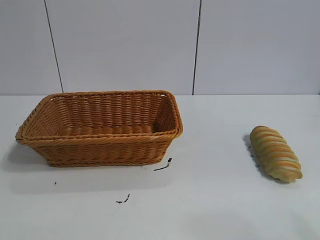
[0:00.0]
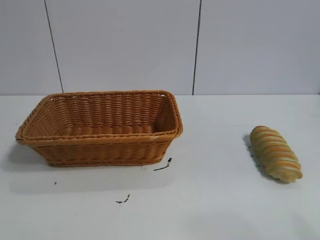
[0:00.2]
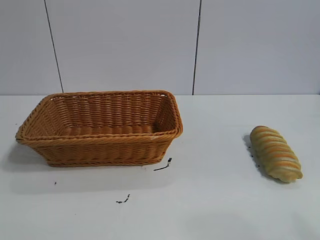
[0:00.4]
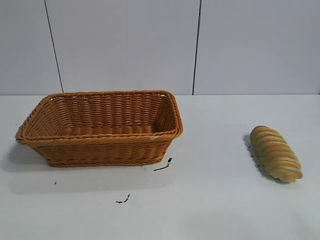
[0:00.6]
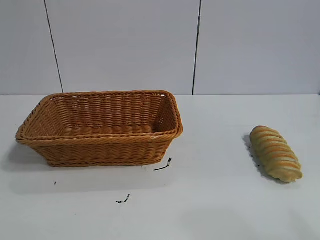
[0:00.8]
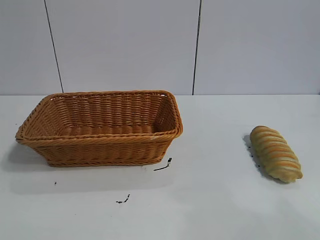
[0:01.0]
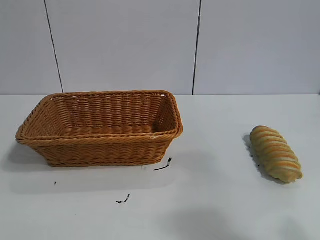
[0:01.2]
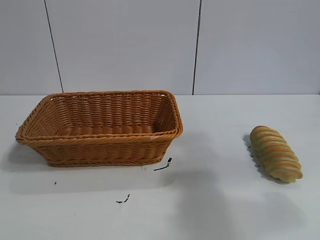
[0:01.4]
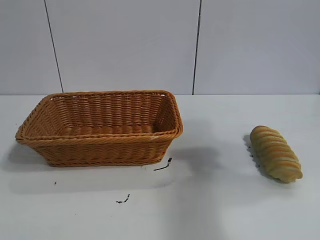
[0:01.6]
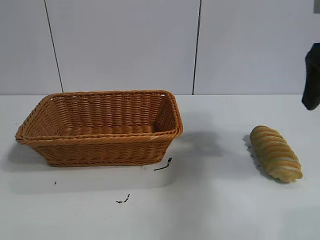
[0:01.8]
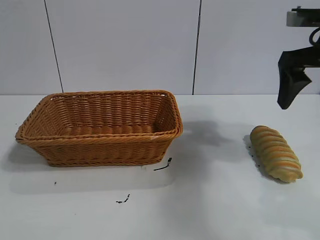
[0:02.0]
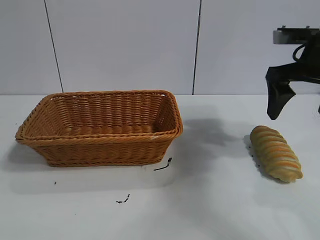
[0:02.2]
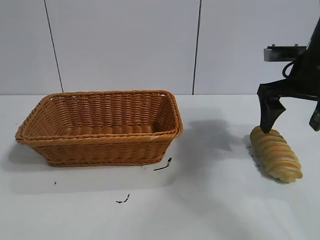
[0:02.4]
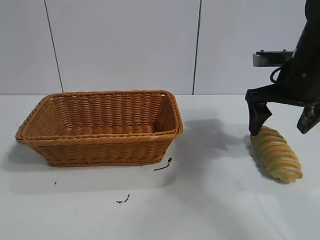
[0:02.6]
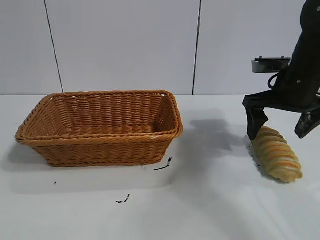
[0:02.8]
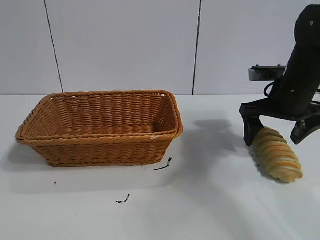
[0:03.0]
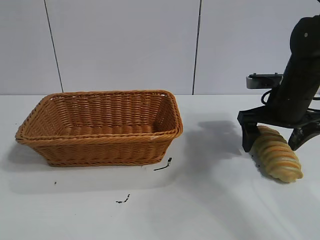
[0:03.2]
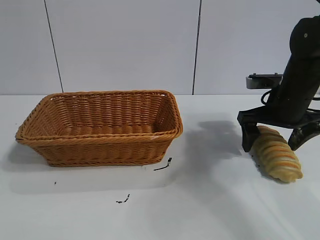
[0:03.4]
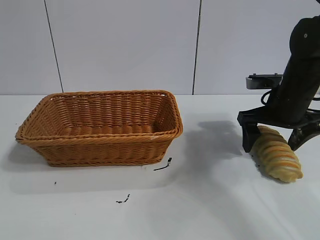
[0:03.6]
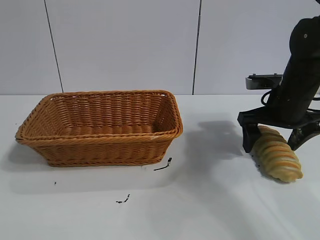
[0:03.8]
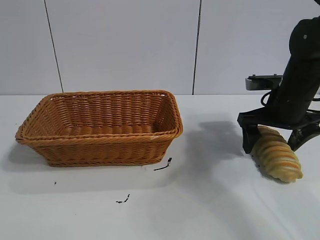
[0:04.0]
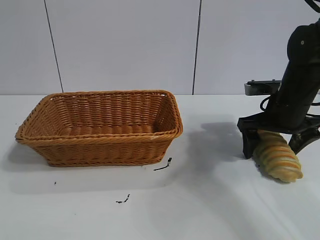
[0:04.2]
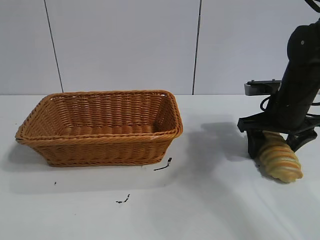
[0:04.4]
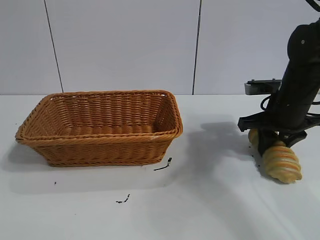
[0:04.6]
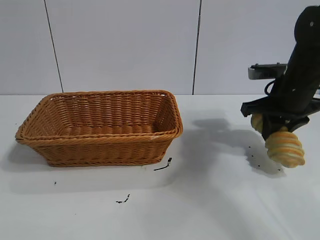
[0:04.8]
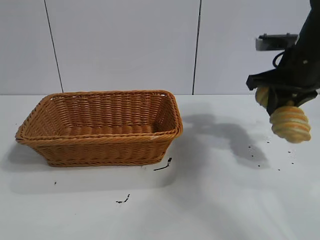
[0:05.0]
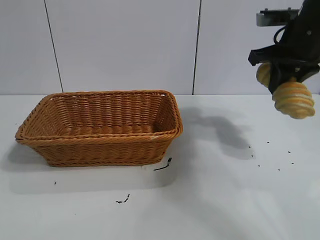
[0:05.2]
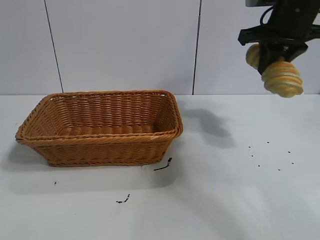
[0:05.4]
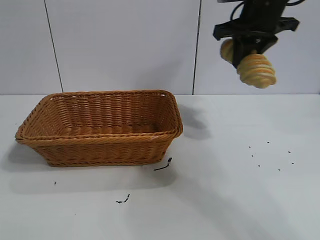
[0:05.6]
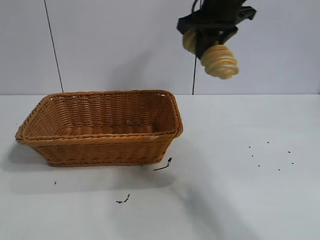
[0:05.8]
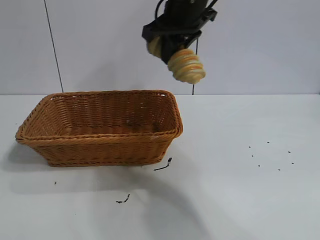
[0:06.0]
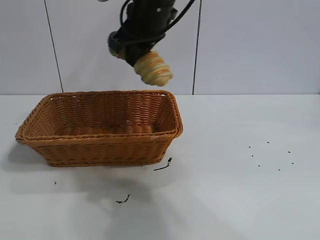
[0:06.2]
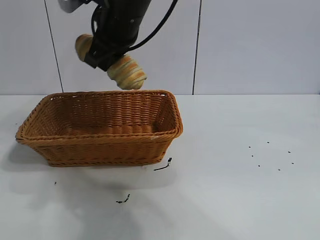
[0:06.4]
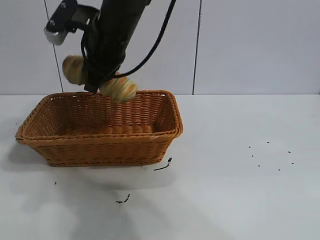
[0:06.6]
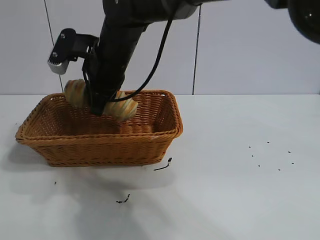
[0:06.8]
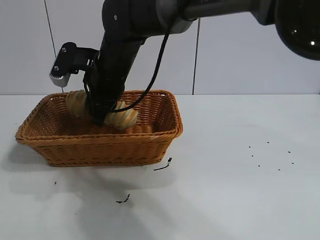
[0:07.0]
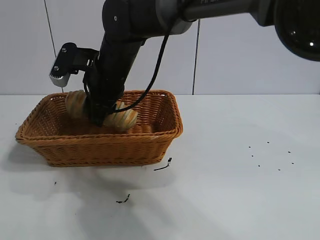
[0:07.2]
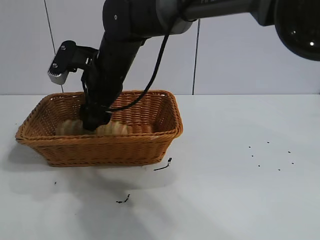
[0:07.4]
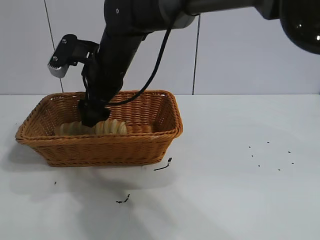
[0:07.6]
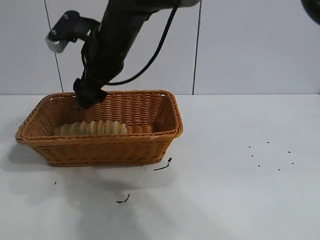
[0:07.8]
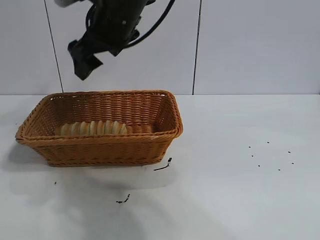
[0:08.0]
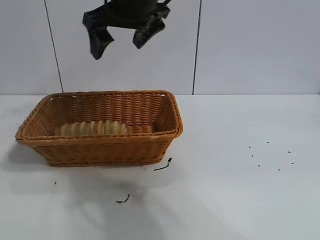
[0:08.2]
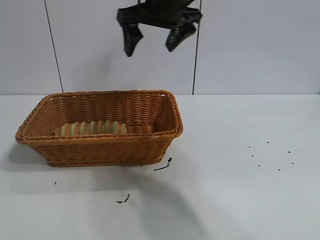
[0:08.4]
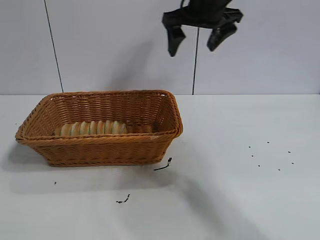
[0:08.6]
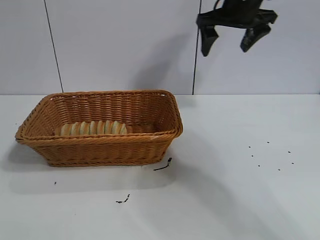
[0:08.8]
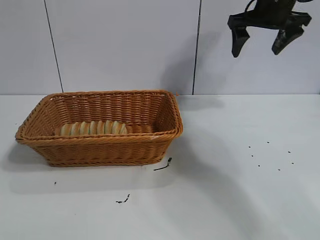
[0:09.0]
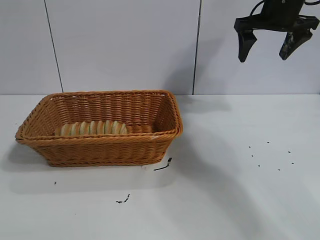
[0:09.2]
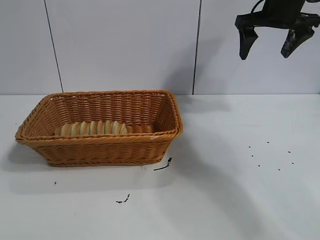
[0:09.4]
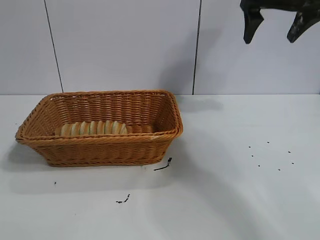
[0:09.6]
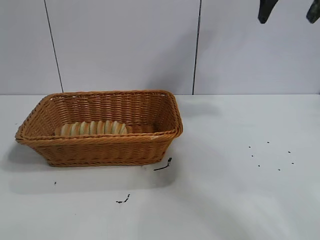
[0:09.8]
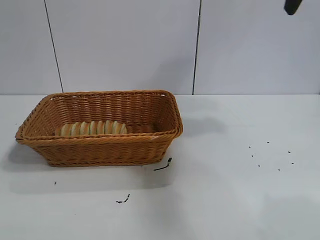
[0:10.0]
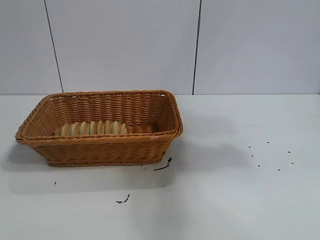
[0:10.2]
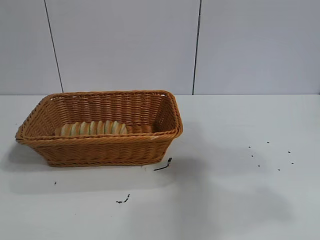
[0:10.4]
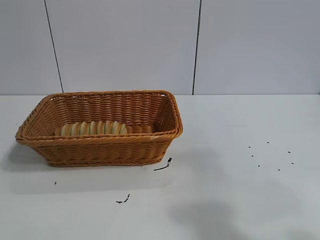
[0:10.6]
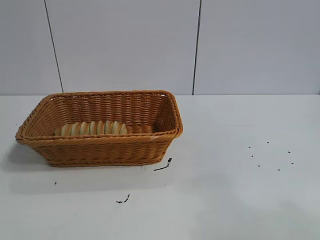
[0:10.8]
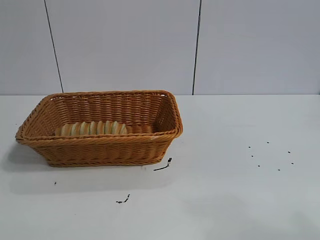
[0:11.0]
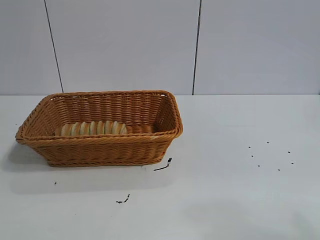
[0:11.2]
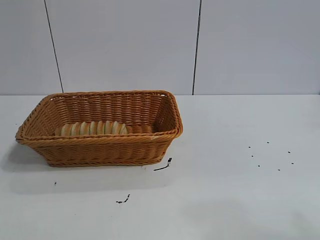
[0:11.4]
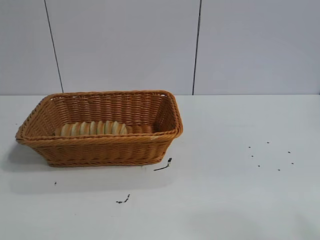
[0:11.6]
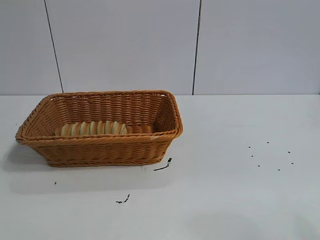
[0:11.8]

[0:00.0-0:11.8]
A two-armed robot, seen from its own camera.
Task of the whole recording: pick up the long bread and put it into the basket.
Step, 0:01.8 to 0:04.6: Grasp the long bread with right gripper.
Step, 0:04.8 to 0:07.6: Place the long bread in the basket with right gripper.

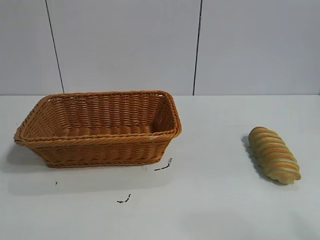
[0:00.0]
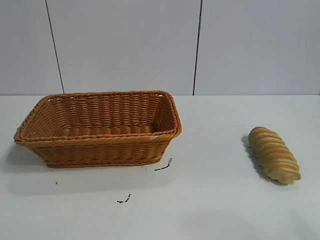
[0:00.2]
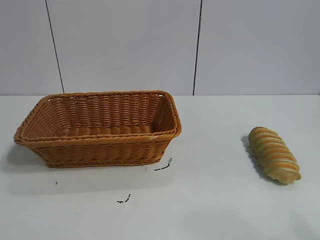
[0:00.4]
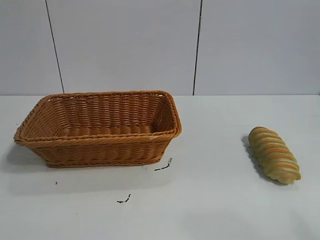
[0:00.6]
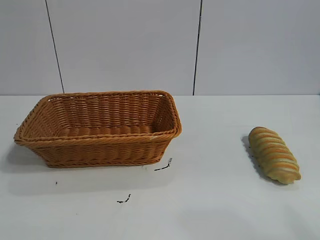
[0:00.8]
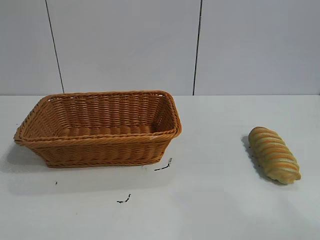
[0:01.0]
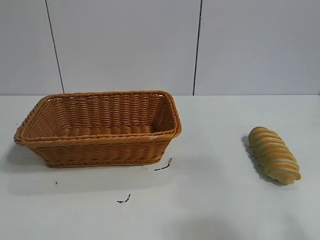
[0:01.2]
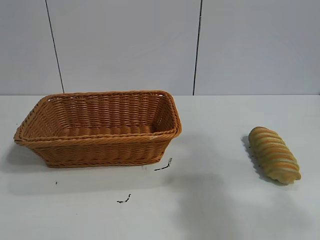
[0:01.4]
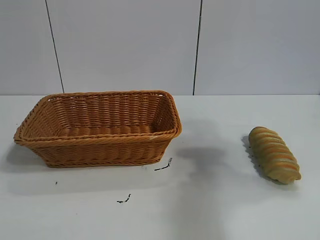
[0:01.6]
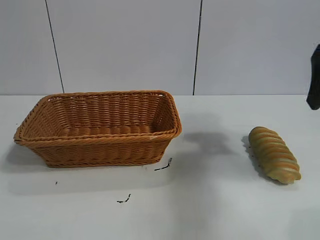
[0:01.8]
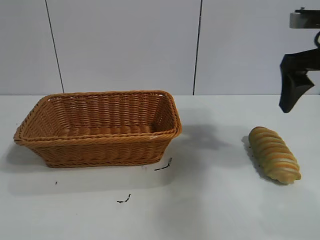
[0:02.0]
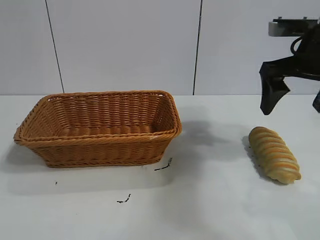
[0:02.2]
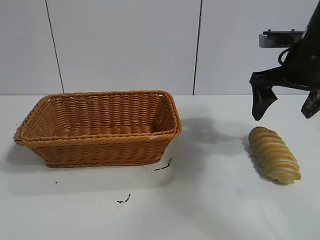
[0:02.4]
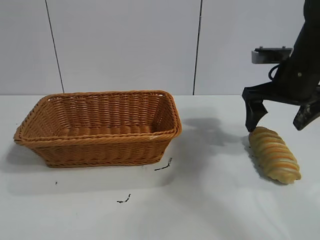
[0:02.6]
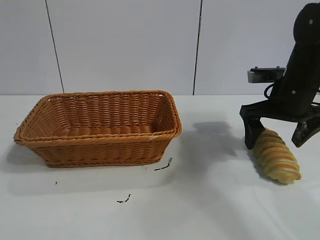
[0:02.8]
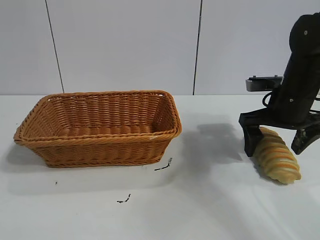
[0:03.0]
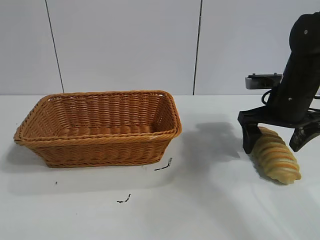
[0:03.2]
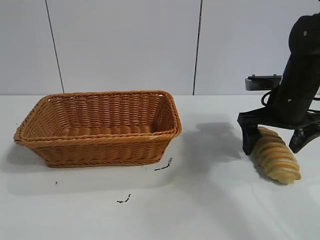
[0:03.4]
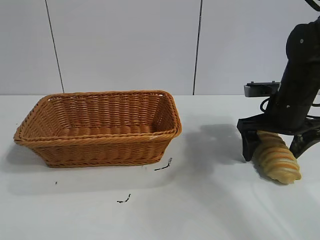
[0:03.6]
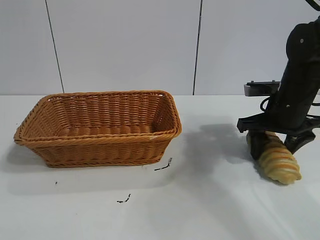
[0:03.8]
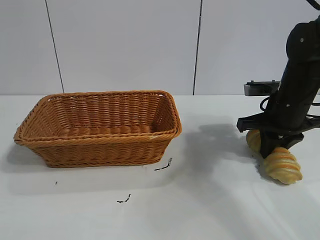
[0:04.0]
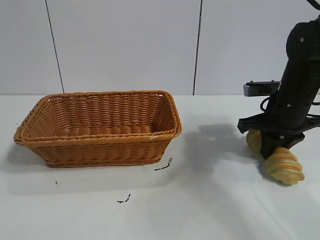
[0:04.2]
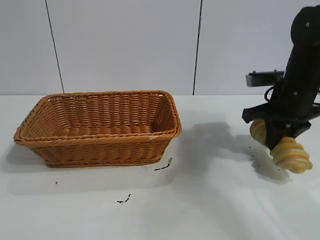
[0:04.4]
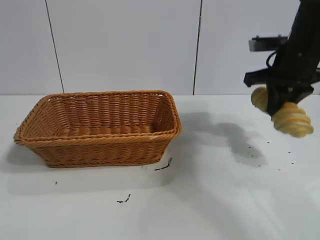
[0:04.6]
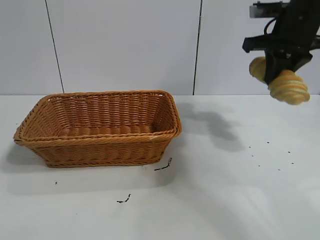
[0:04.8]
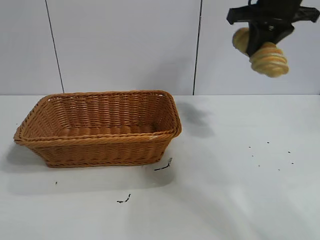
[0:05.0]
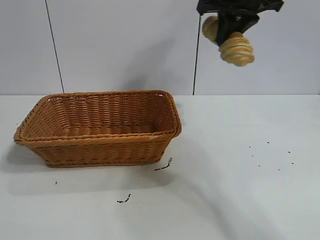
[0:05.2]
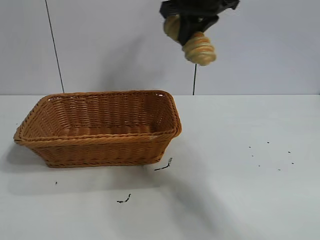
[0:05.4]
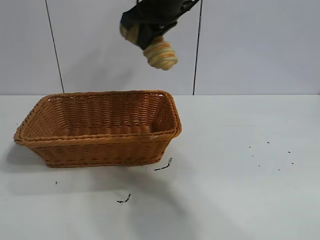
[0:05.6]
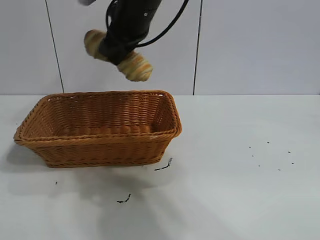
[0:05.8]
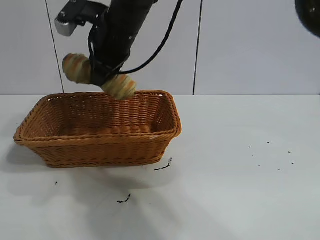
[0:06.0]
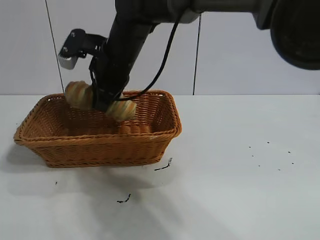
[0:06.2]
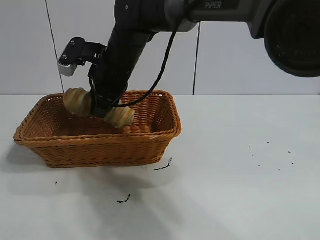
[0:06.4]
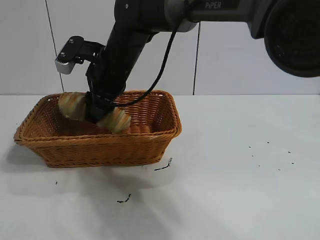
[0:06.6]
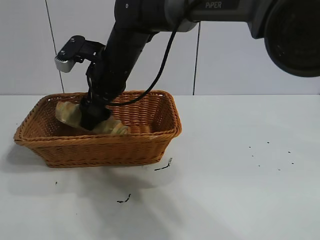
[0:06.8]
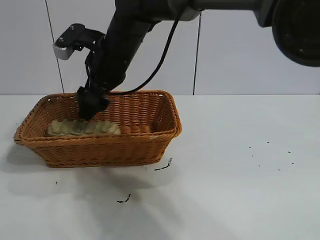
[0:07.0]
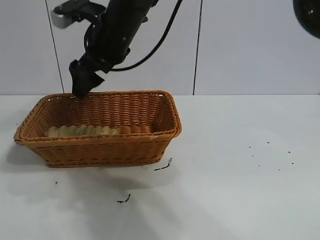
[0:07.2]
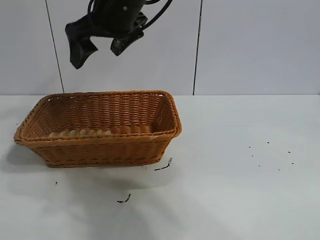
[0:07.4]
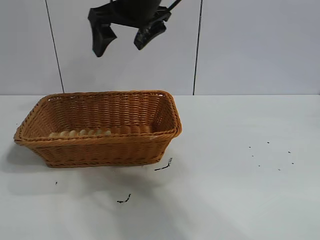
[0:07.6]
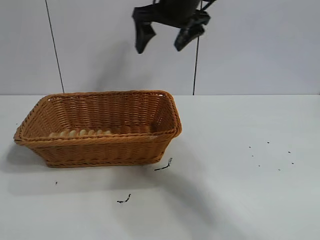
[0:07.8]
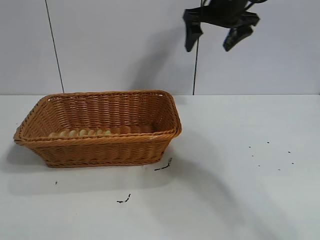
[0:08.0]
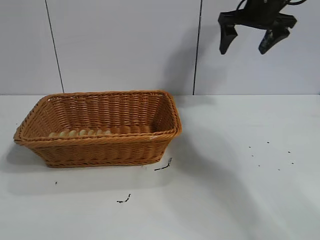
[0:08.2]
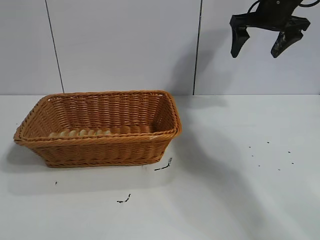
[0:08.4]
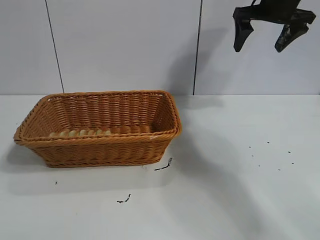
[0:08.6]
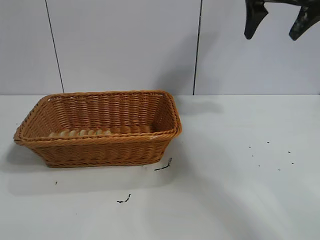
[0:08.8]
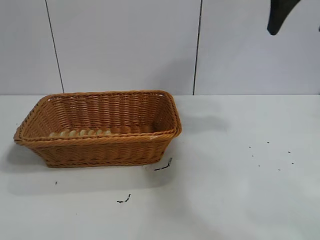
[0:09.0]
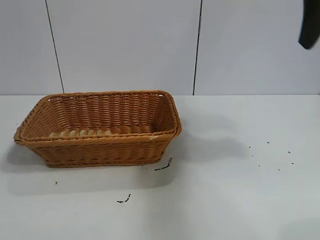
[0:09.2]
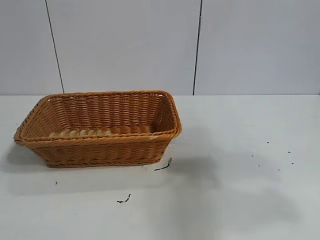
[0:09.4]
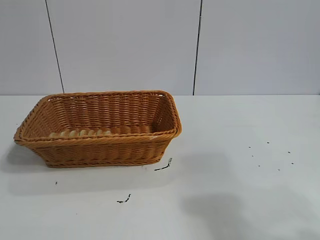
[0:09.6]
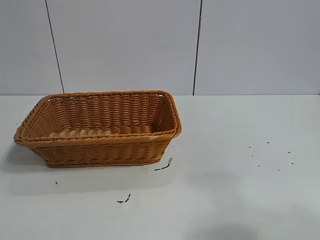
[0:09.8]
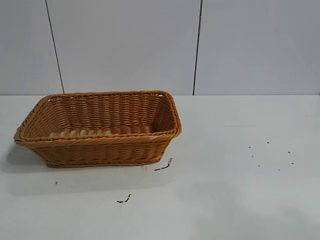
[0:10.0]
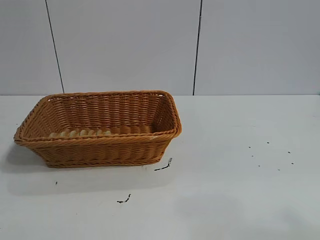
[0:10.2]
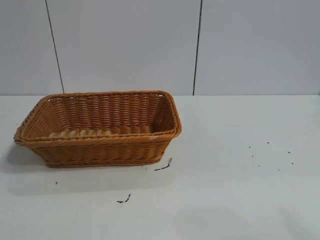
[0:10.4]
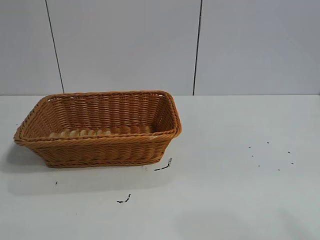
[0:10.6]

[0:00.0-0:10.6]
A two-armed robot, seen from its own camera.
Task of the whole recording: pick up the long bread and put it into the basket.
Step, 0:01.8 to 0:04.2: Grasp the long bread with right gripper.
Step, 0:04.4 to 0:07.2: Place the long bread in the basket with right gripper.
